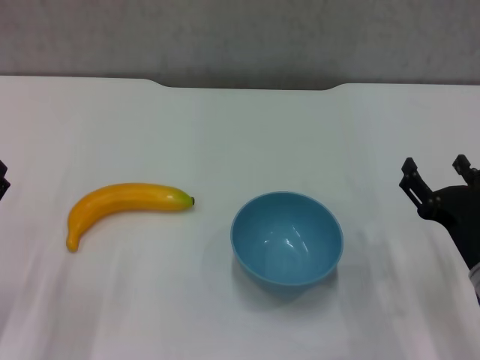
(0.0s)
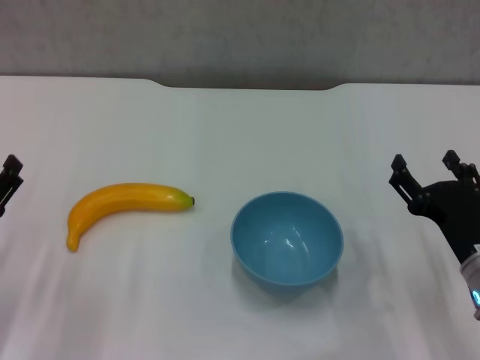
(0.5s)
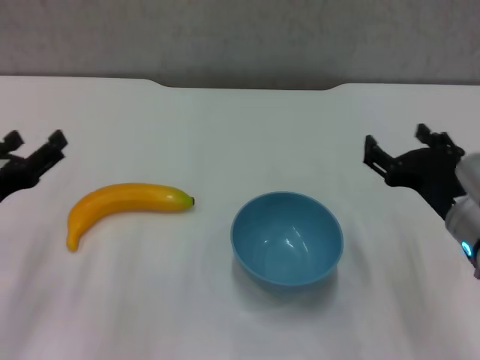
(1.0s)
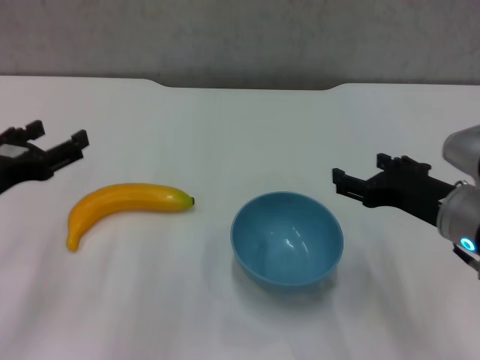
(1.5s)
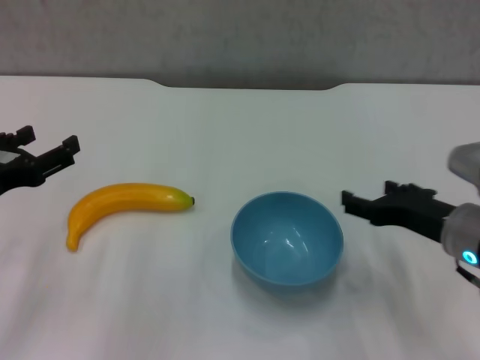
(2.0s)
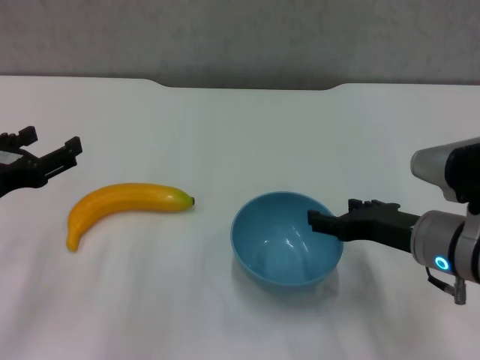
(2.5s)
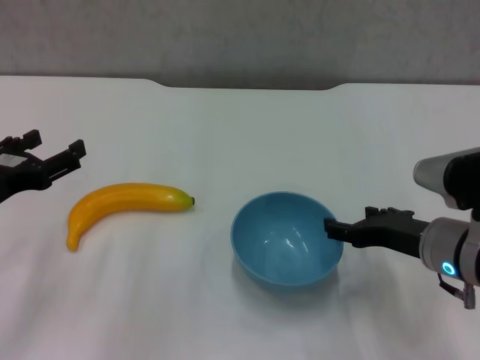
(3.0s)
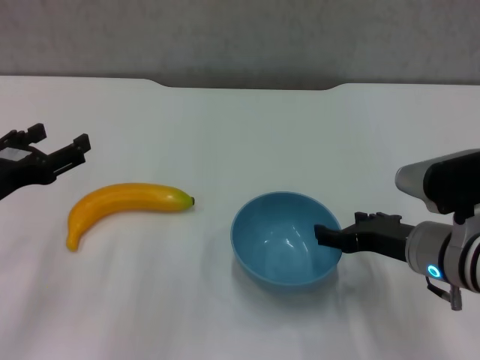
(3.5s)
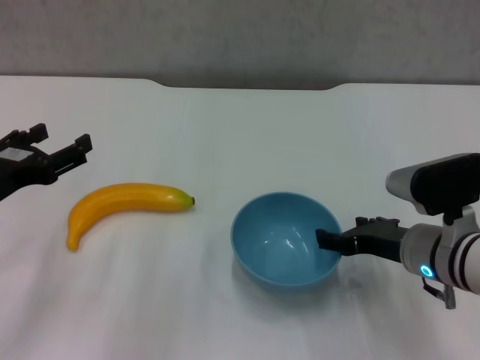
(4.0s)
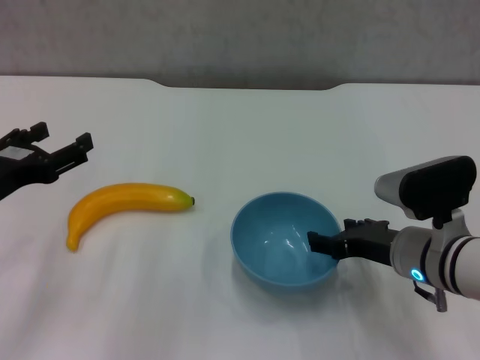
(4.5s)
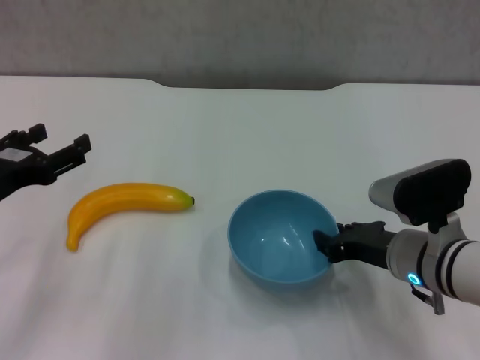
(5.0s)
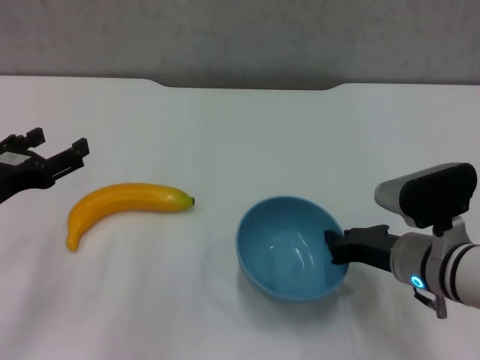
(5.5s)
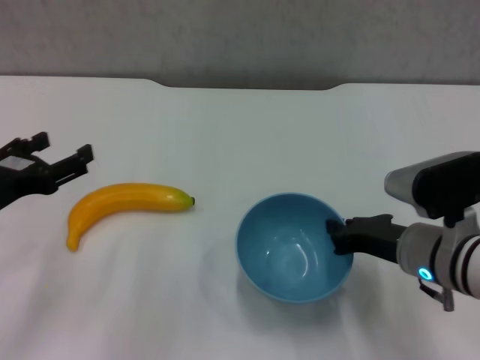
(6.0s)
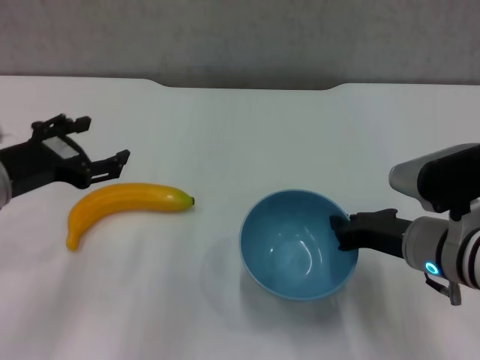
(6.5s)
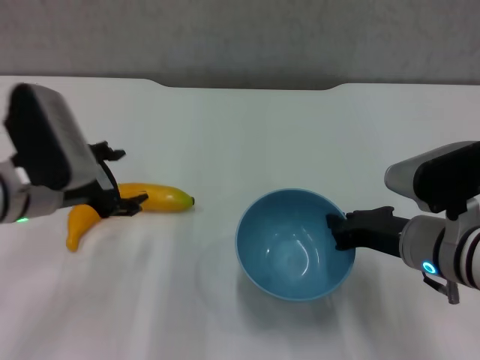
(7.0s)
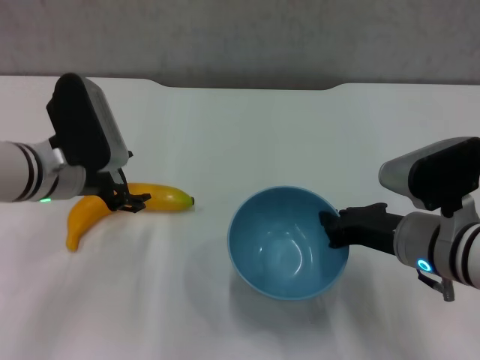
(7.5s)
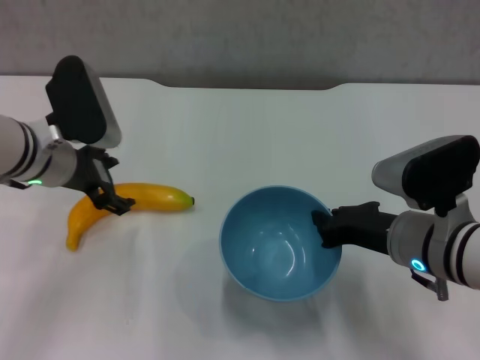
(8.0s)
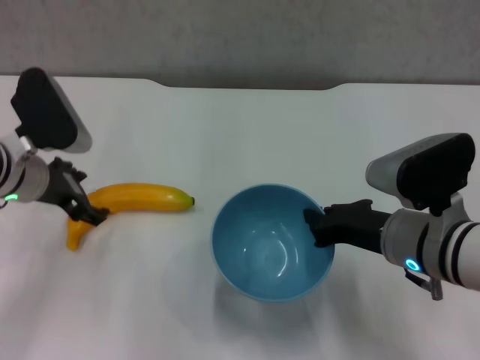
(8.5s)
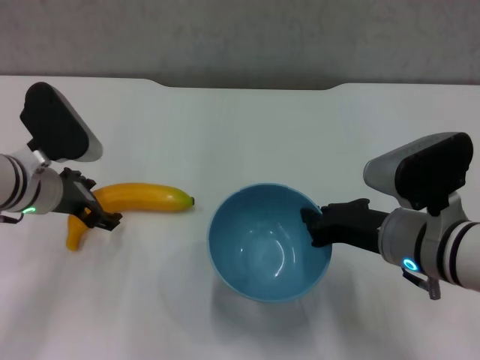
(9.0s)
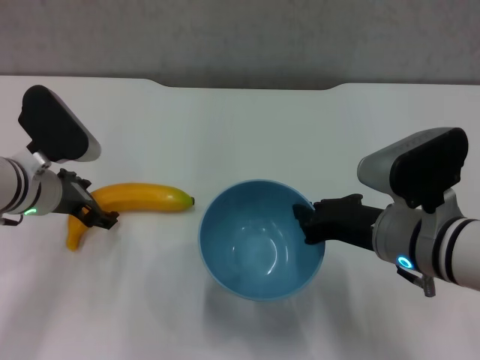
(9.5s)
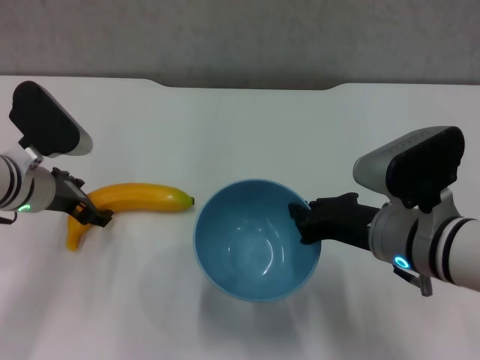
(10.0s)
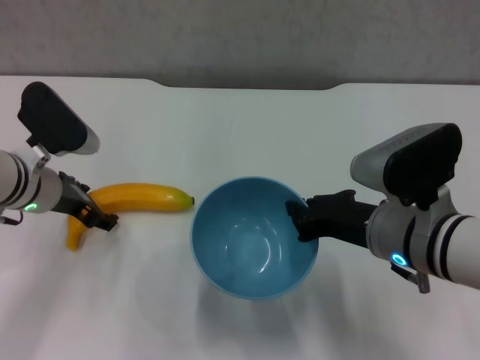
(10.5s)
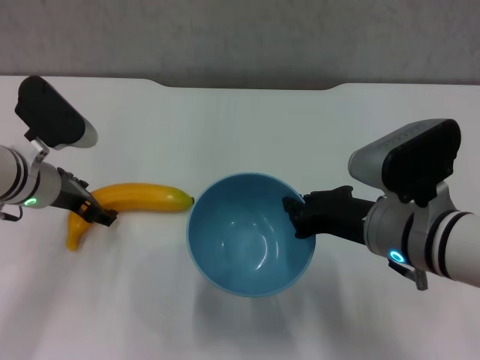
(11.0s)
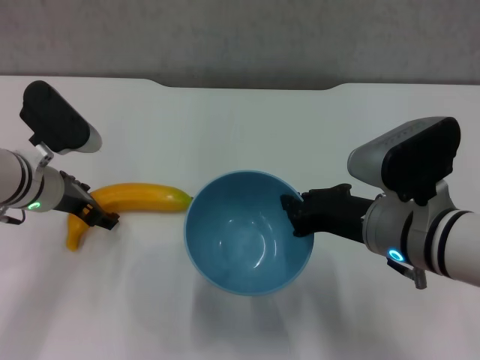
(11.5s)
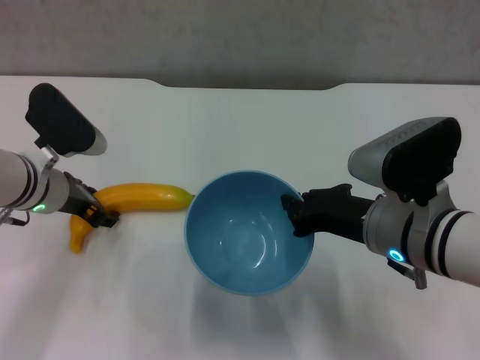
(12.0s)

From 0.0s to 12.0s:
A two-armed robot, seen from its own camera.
Step, from 0.0s to 5.0s: Grasp the blue bowl with right gripper.
Step, from 6.0s to 6.5s: Lift the blue bowl with right gripper.
From 0.0s to 2.0s: The two grippers go roughly 5 cm upward.
From 2.0s to 4.0s: The grippers move only a little.
From 4.0s to 6.0s: The right gripper closes up.
From 6.0s to 8.0s: The left gripper moves forward and to the right, approximately 15 cm.
From 10.0s to 12.0s: The grippers make only small movements.

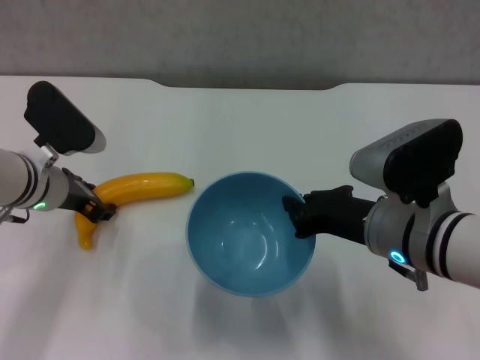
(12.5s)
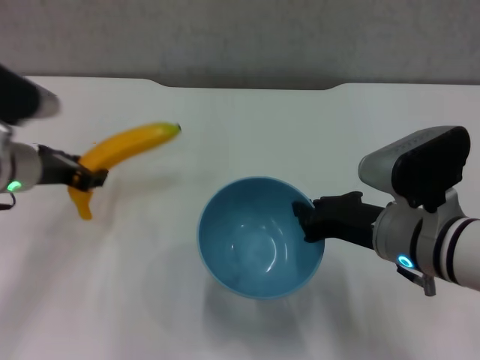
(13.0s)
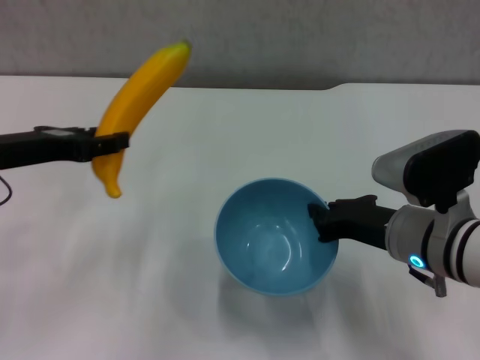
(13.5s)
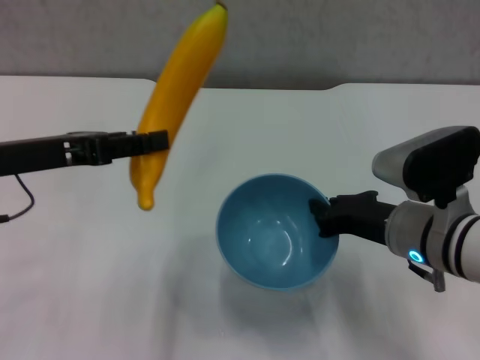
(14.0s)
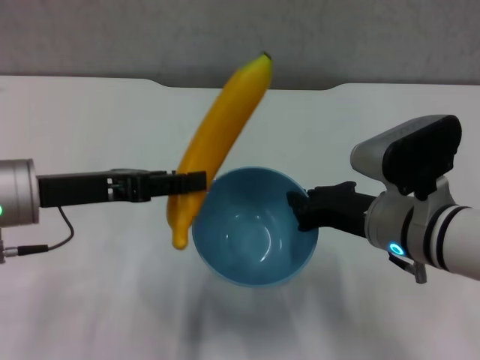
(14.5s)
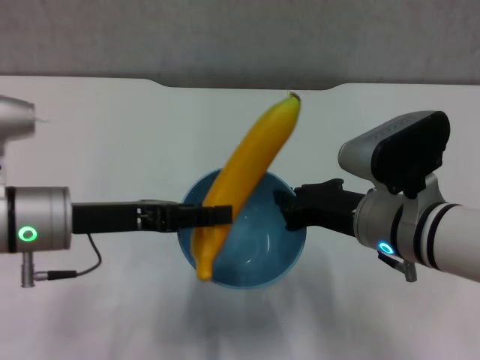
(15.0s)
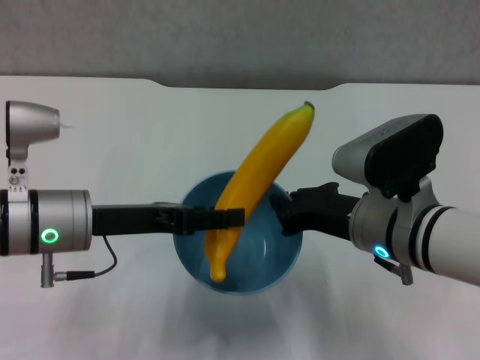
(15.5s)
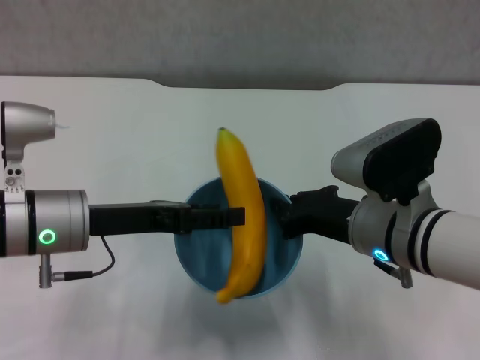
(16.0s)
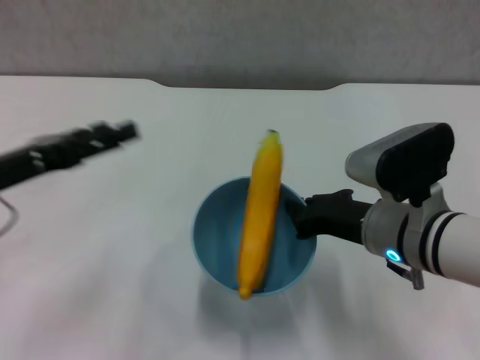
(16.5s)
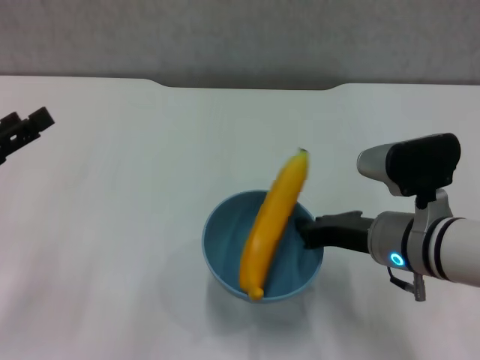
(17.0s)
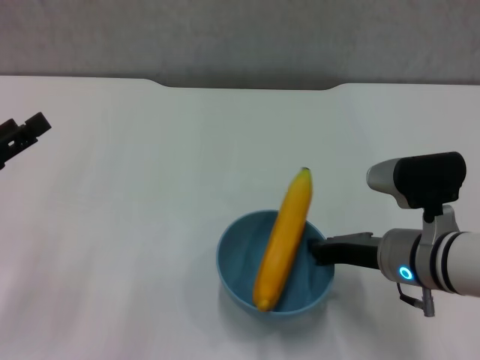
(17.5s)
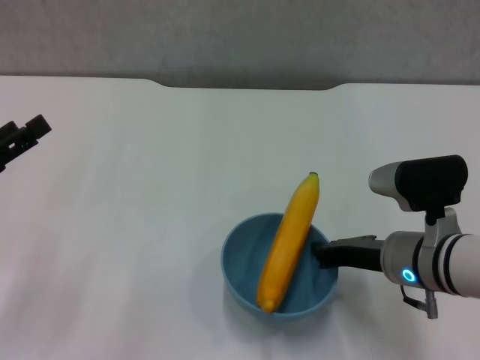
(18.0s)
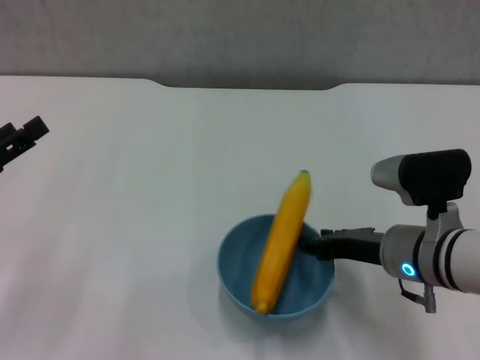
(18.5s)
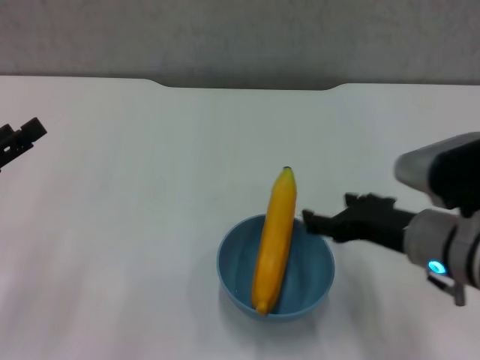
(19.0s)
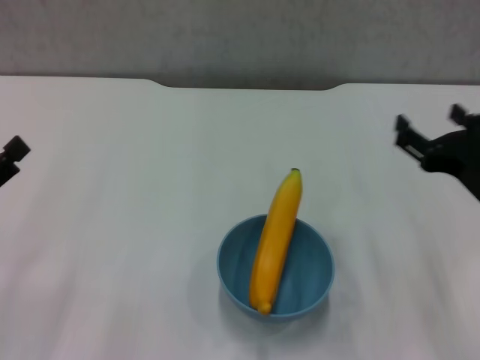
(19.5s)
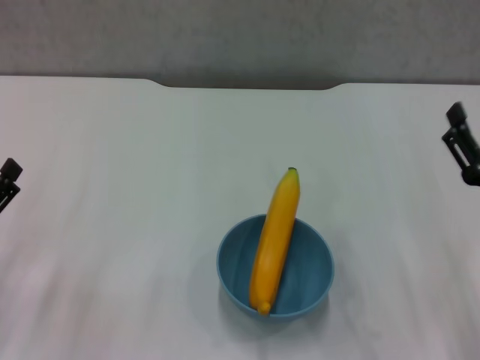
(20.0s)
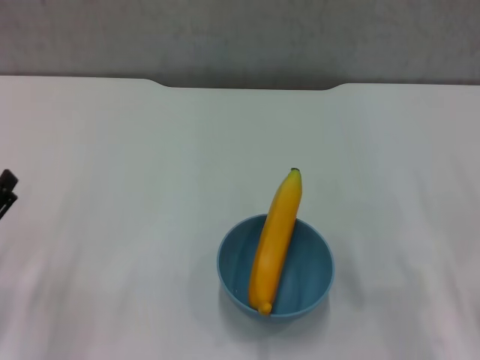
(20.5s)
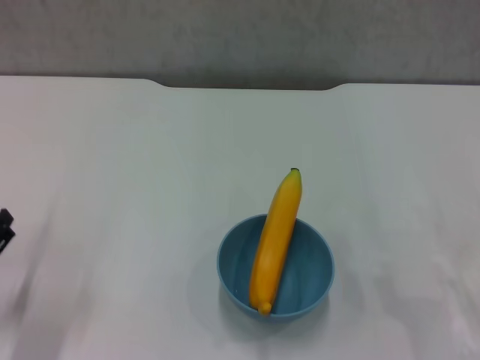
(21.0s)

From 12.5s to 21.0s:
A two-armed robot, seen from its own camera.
Step, from 12.5s to 16.0s: Place the banana in the blue bowl with left gripper.
Step, from 16.5s to 18.5s: Place the bowl on the table with right gripper.
From 12.5s to 14.5s: The left gripper moves backward and upward, some 10 cm.
From 14.5s to 16.5s: The left gripper opens.
From 16.5s to 19.0s: The right gripper opens up. Meanwhile the left gripper goes roughly 5 cm to the left.
From 19.0s to 21.0s: The left gripper goes roughly 10 cm downward. Meanwhile the right gripper heads to the right, downward and backward, covering roughly 15 cm.
